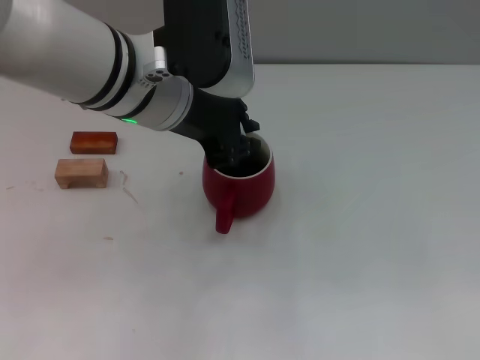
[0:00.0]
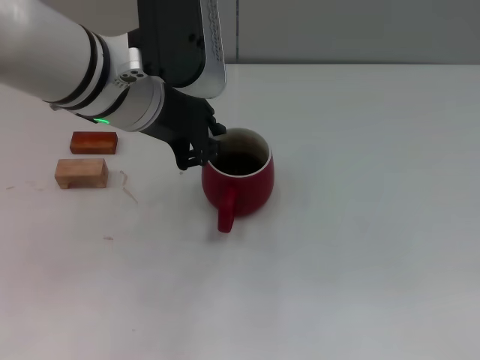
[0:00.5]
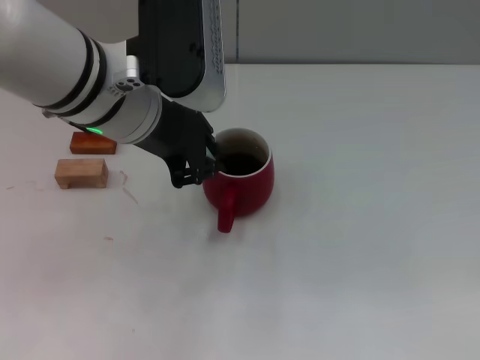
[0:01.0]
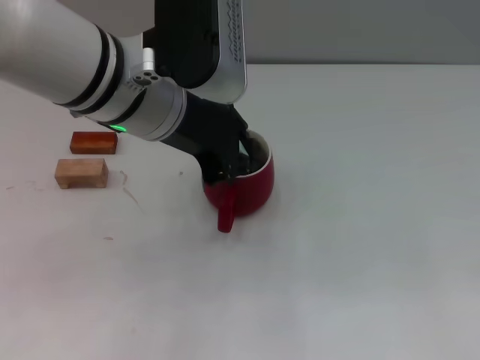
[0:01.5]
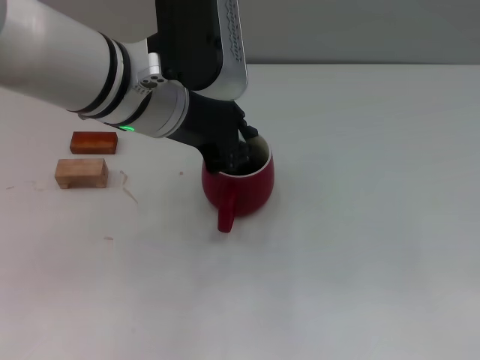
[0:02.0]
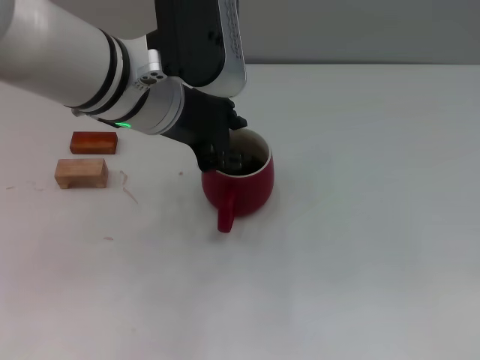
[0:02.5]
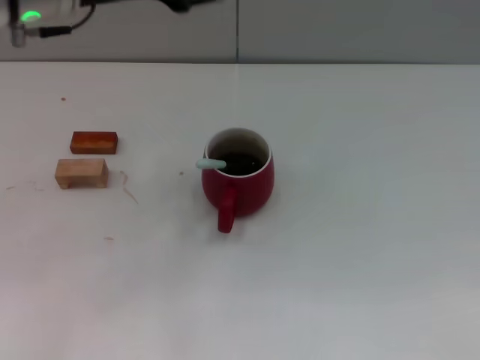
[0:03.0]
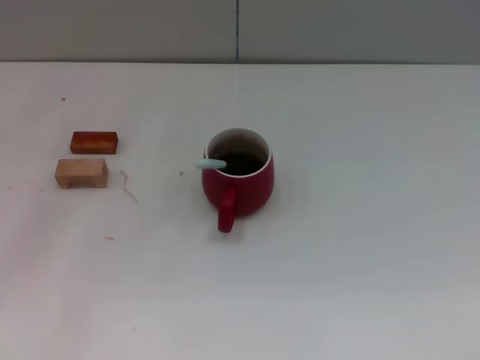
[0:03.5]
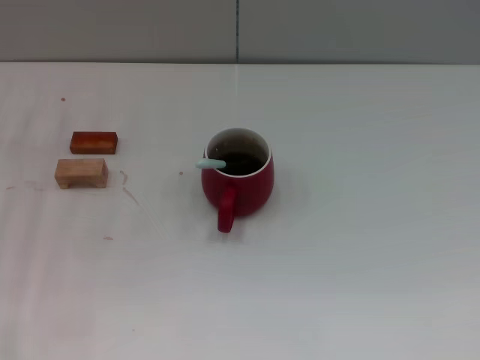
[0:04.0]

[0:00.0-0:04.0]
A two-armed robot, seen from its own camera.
Task of the whole recording: Move the red cup to the center, lift the blue spoon, stir it three times in the cup, and put the spoon into the cup.
Step, 0:00.0 to 0:02.5: Stir the coffee in the cup with the left gripper.
0:00.0 to 0:02.0: The grippers stay close to where they were, moving slightly.
0:02.0 to 0:04.0: The left gripper moves to the left and downward, roughly 25 cm, and opens its fingers.
